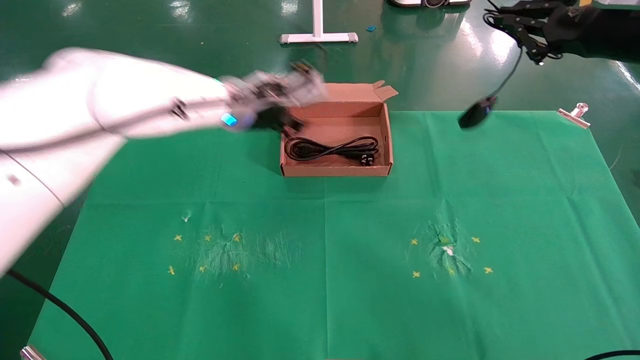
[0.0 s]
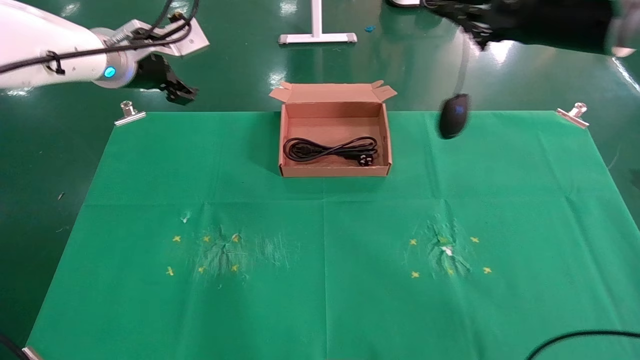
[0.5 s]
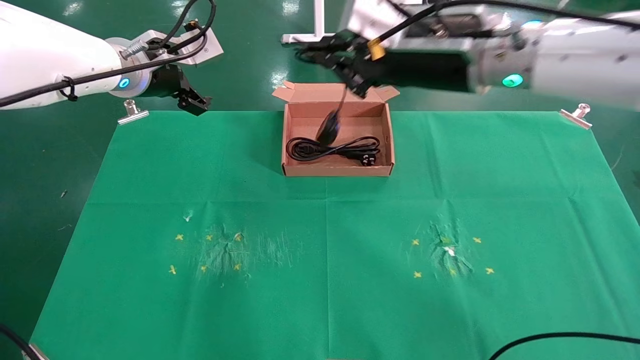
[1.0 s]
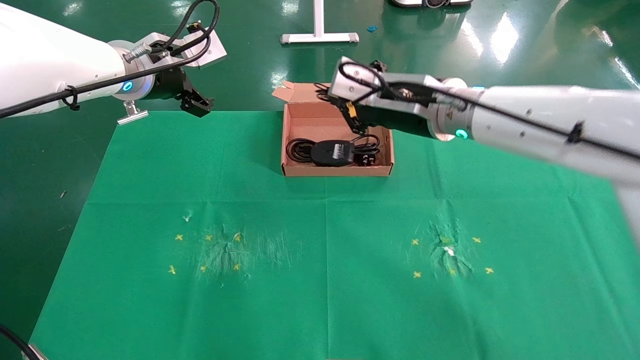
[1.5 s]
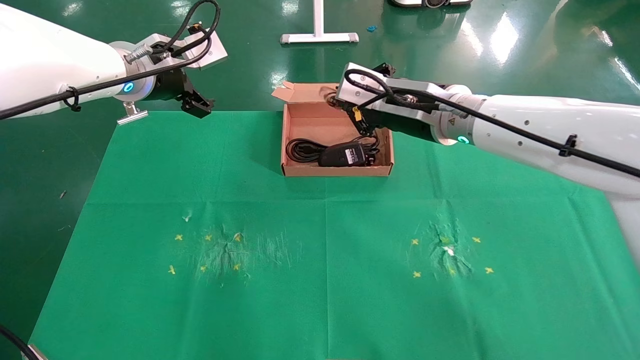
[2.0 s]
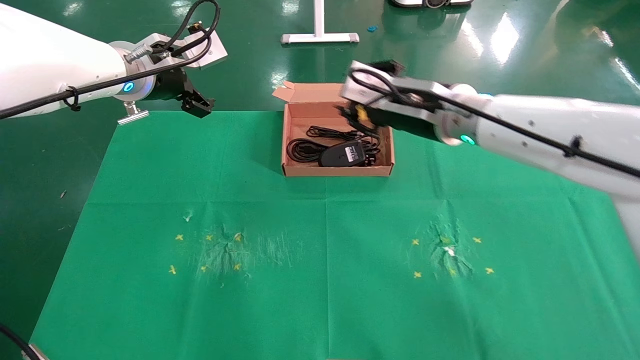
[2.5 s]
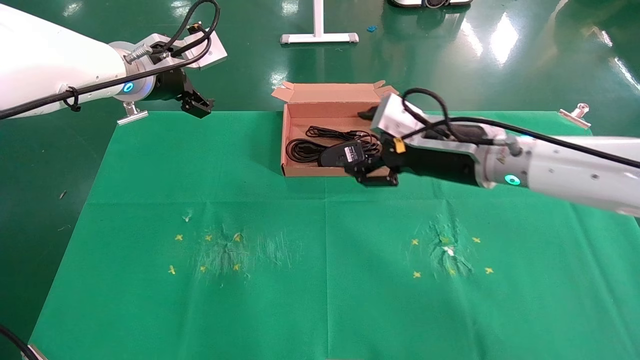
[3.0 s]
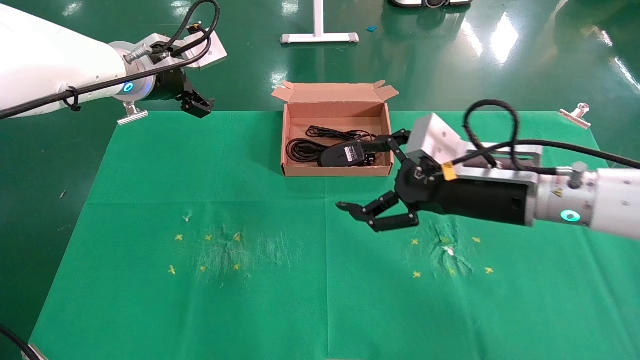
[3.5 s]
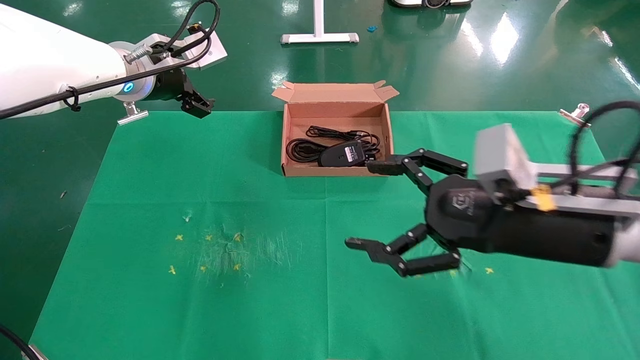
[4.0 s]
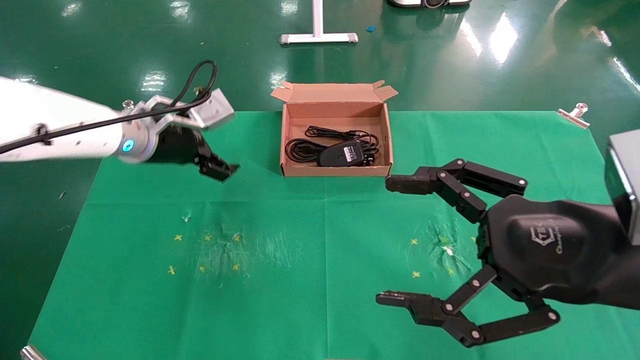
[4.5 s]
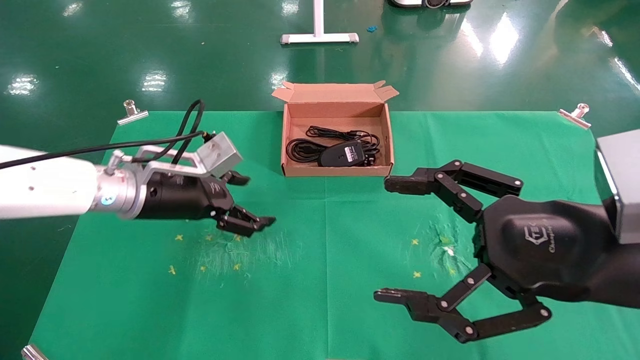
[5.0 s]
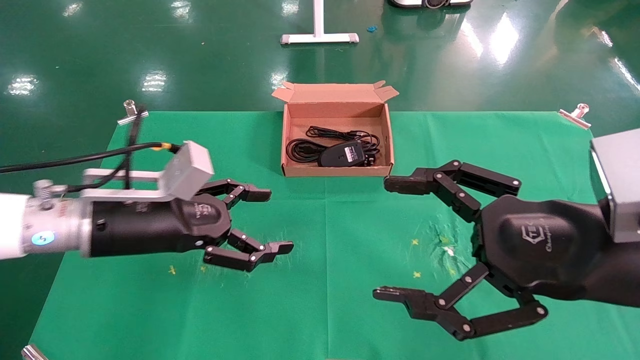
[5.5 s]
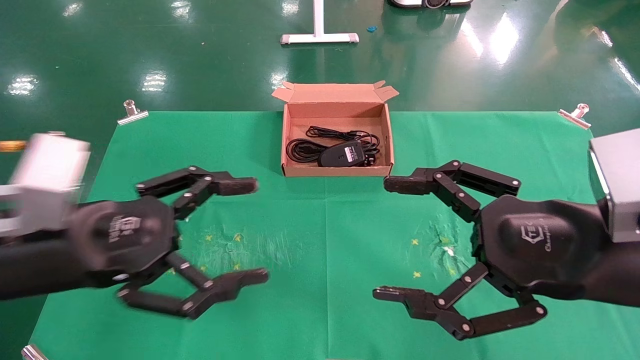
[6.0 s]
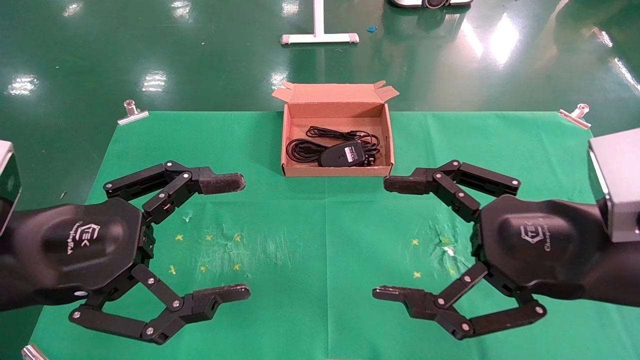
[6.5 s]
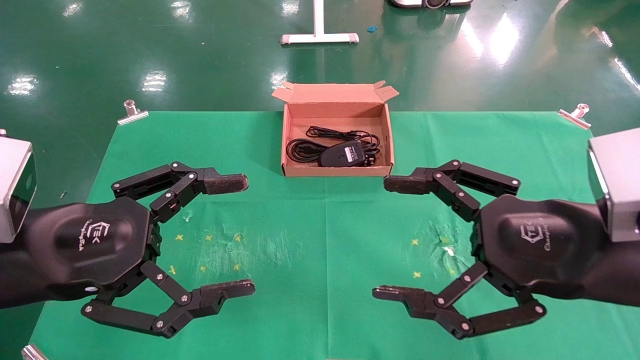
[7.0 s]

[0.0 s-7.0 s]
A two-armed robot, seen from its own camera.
Task of the whole recording: grasp data cable left put into box grasp mouse right put into box.
Step, 0.0 to 2.0 s: Place the mouse and power cord into the box.
0.0 to 2.0 s: The right gripper travels to the left and downward by about 25 cm. The left gripper moves to the left, about 10 cm, and opens.
2.0 to 3.5 s: The right gripper is displaced backward, to the right and downward by some 15 cm, and opens.
3.5 to 5.0 s: The left gripper moves downward and backward, roughly 15 cm; the right gripper is displaced backward by approximately 10 cm.
5.0 to 7.0 s: The left gripper is displaced backward by approximately 20 cm.
